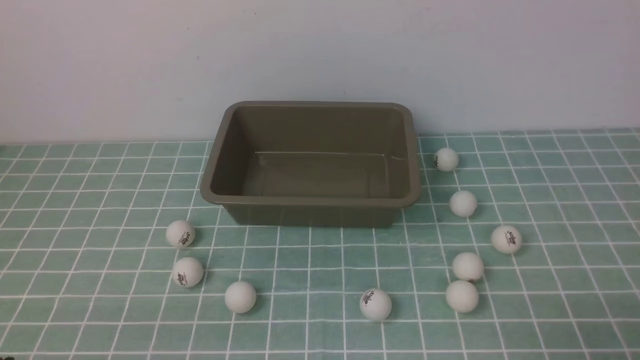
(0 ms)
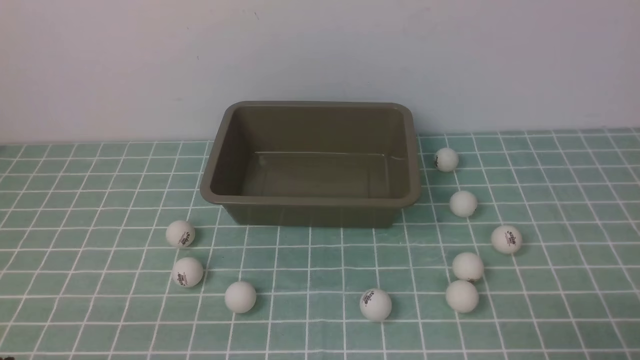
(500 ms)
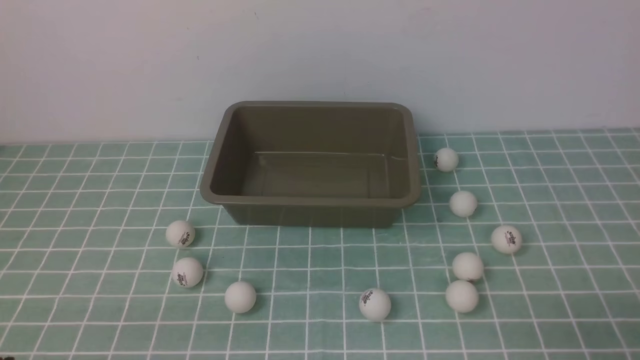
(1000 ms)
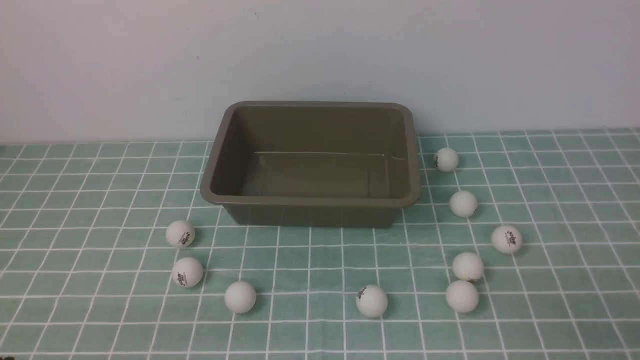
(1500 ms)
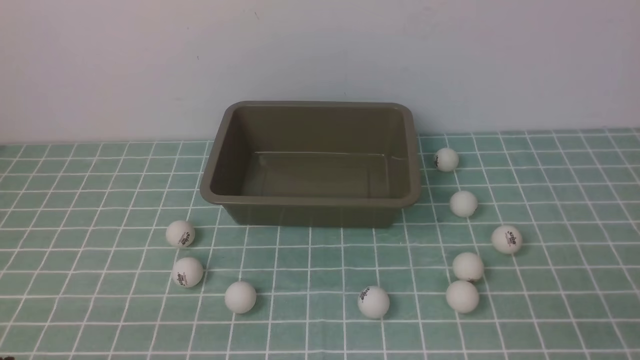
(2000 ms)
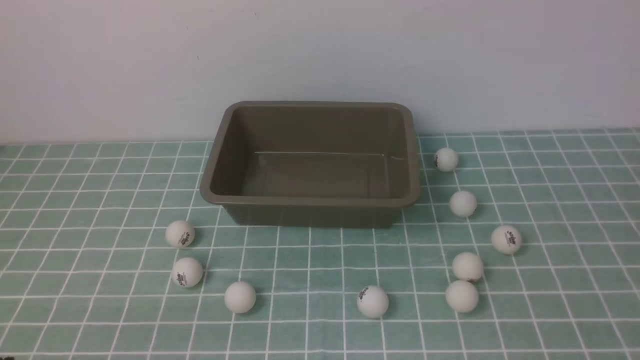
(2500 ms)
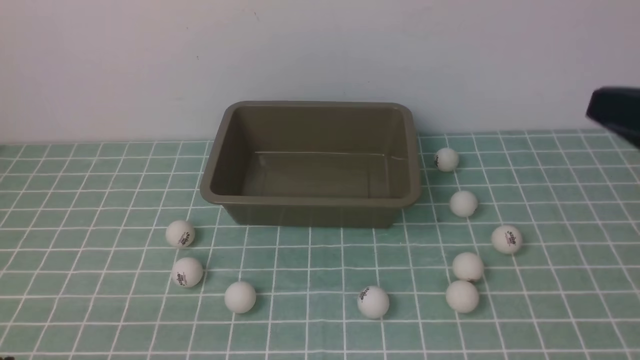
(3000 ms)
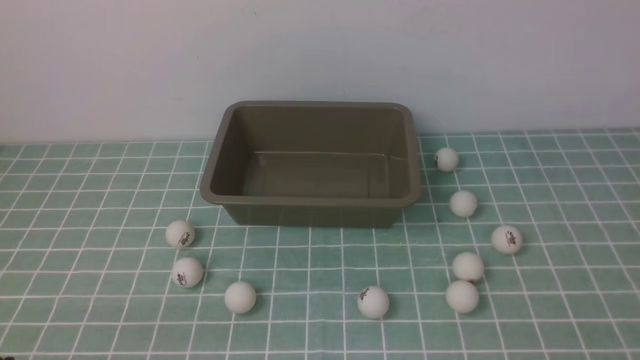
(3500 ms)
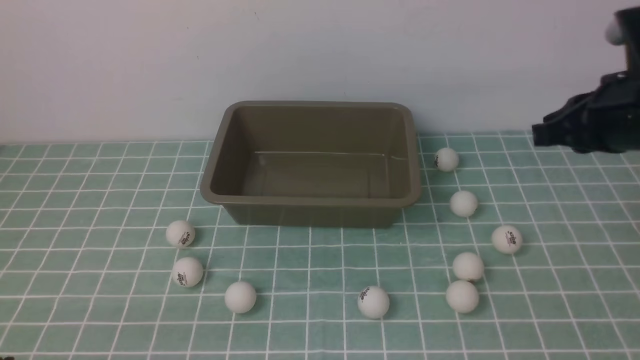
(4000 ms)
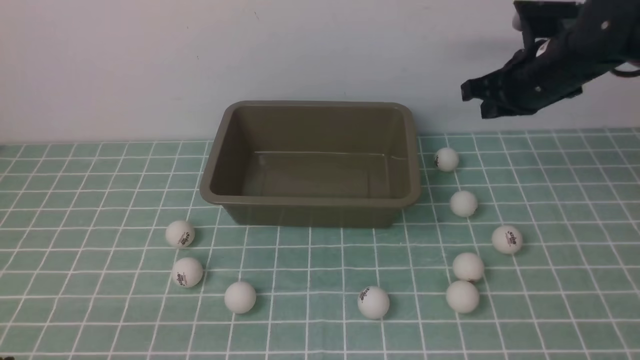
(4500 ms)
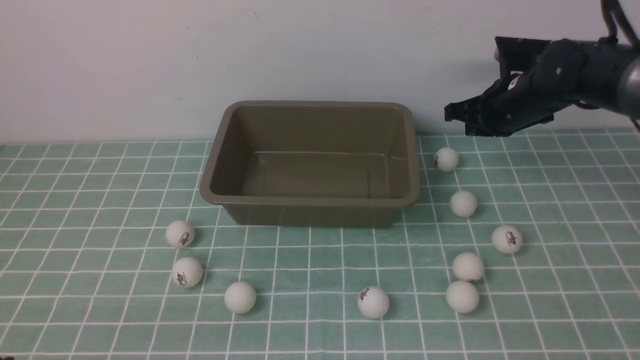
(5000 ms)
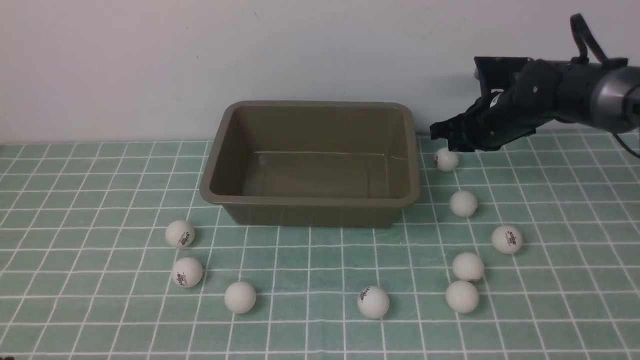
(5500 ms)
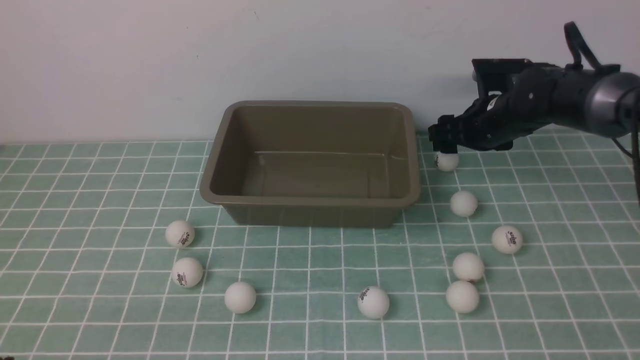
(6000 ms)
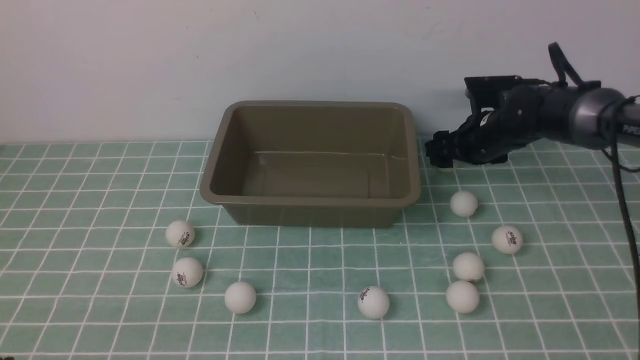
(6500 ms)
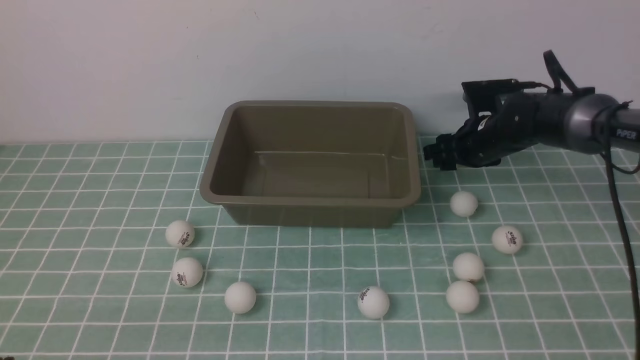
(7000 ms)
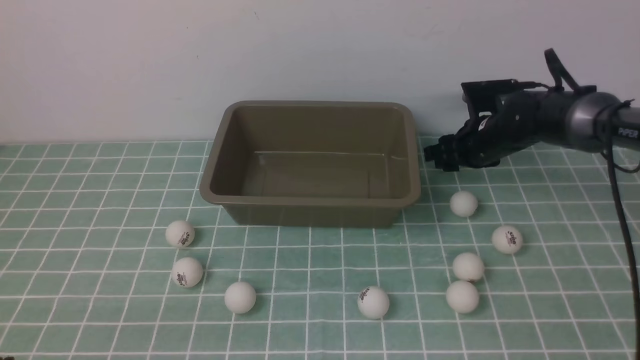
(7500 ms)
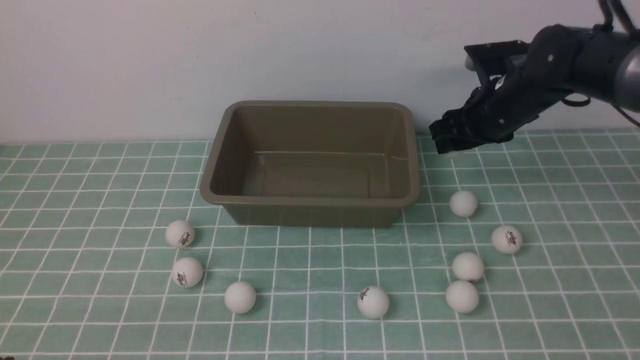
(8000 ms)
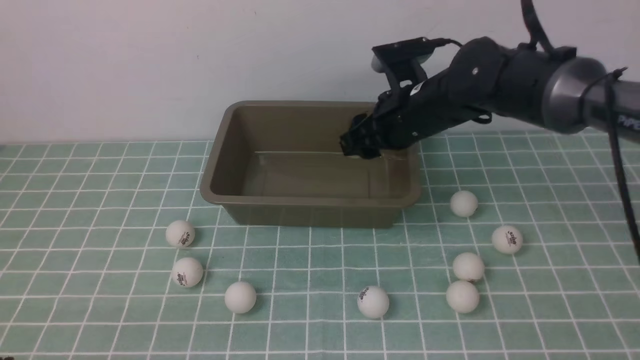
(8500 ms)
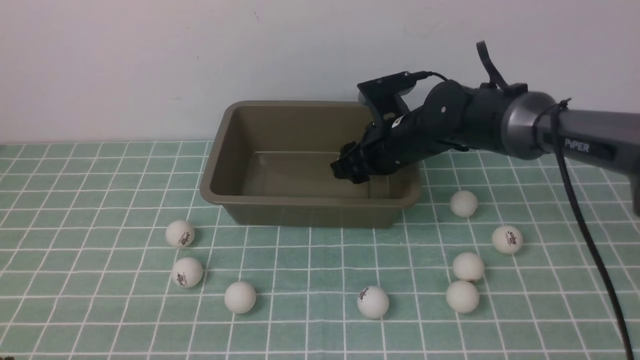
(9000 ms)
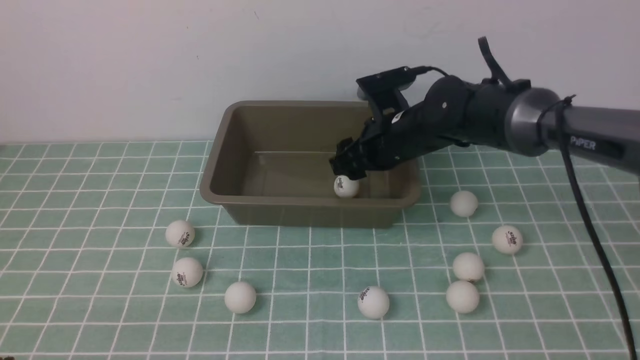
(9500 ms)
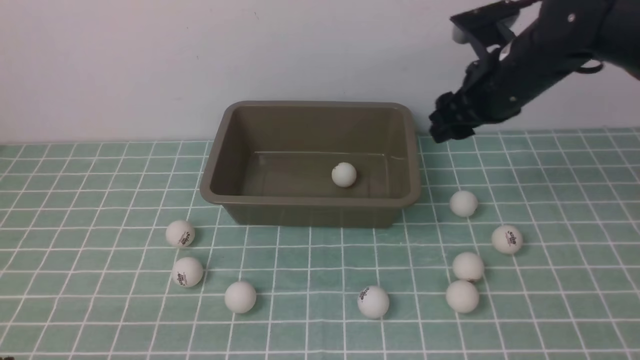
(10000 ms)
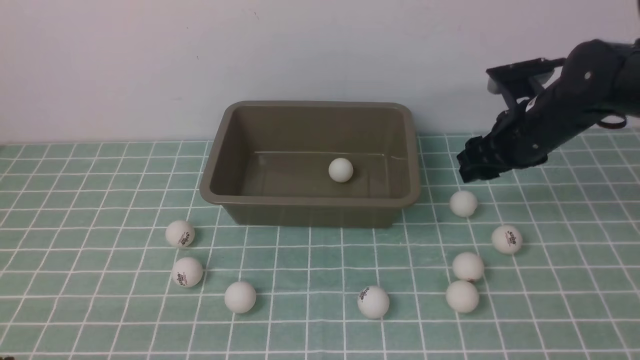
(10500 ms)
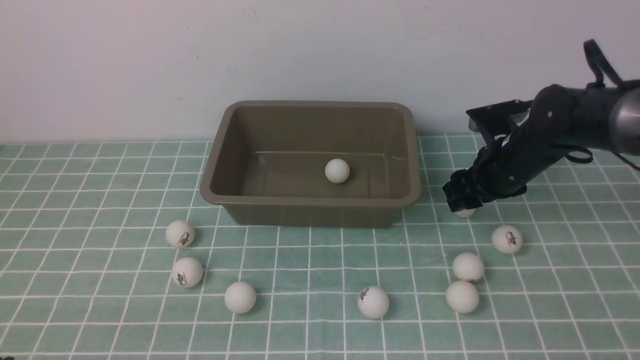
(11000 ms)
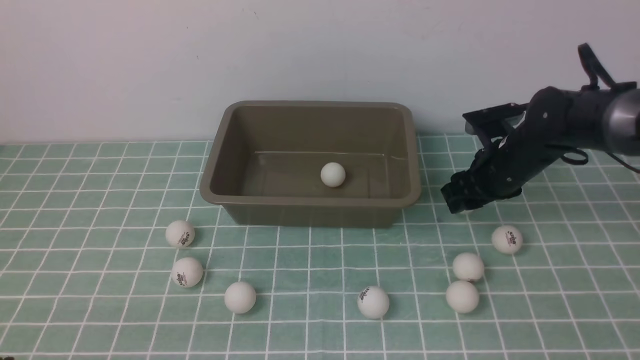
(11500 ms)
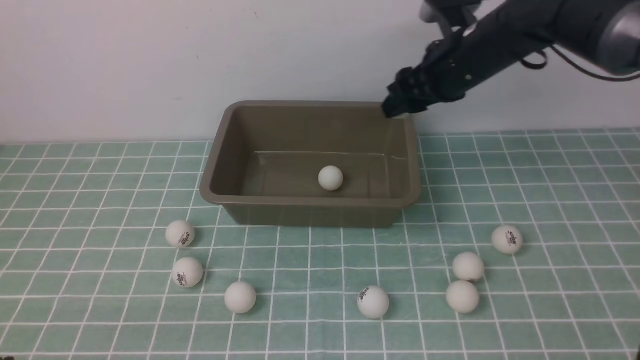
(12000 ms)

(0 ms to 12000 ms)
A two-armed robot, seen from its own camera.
Step, 0 ms - 7500 ms: use the right arm to clamp the table tennis ball closest to it.
Step, 8000 ms - 9500 ms: use the right arm to put the table tennis ball into the box.
Step, 10000 ms - 11500 ms: use the right arm to clamp the table tennis ball closest to it.
2000 ms - 4000 ms: The right gripper goes approximately 25 cm forward.
4000 ms - 6000 ms: The right gripper heads forward and downward, covering about 20 cm, and opens up.
6000 ms - 8000 ms: The right gripper moves to the left and upward, roughly 10 cm.
8000 ms - 10000 ms: The right gripper is displaced to the right by some 10 cm.
10000 ms - 12000 ms: The right gripper goes approximately 15 cm to the left.

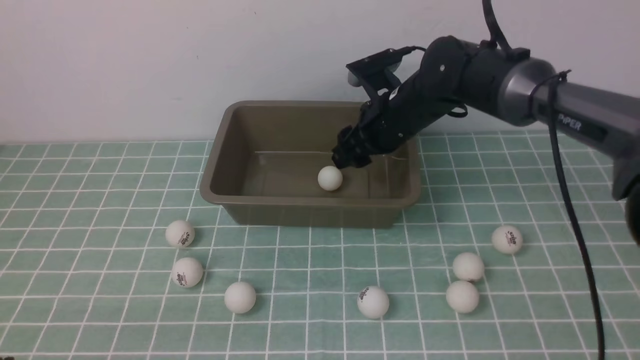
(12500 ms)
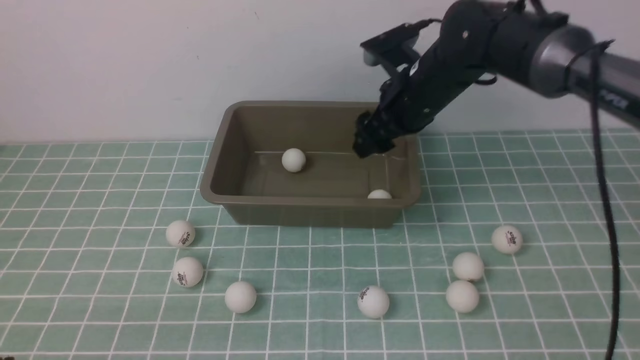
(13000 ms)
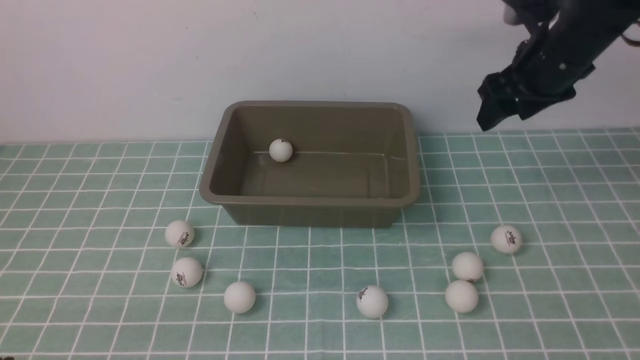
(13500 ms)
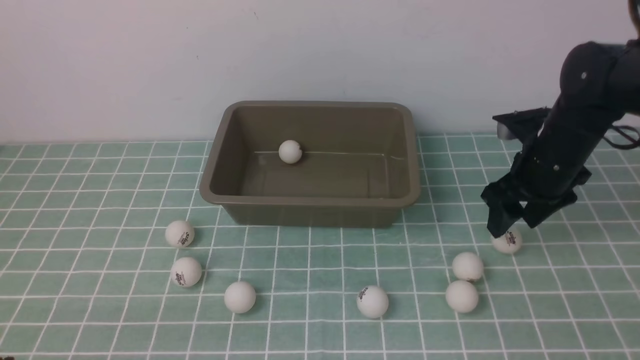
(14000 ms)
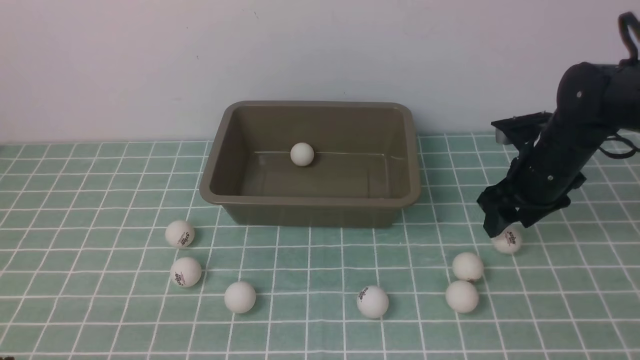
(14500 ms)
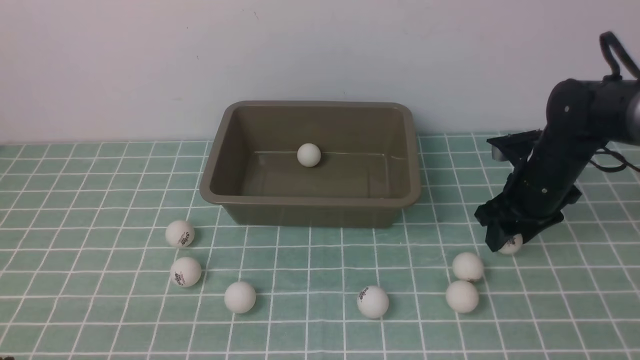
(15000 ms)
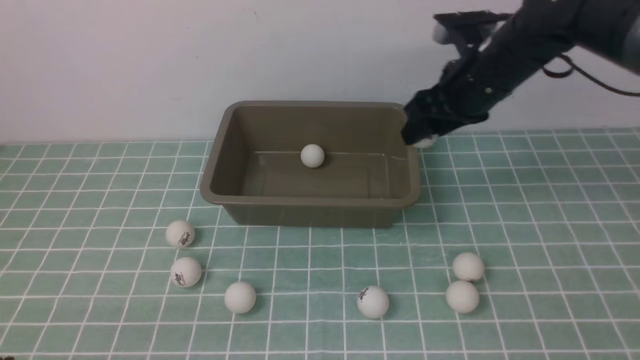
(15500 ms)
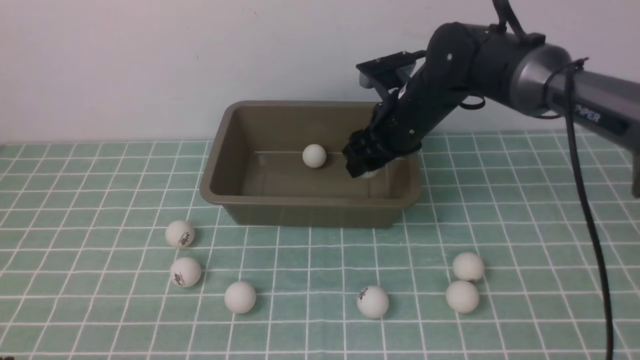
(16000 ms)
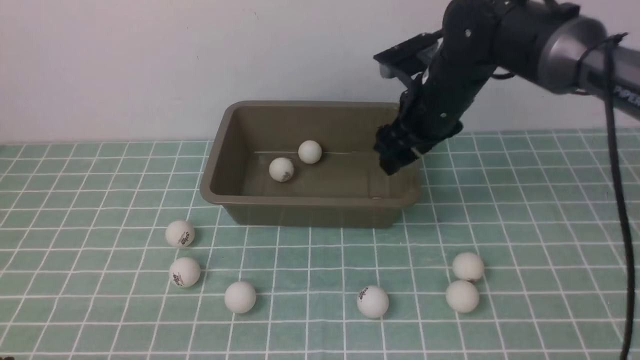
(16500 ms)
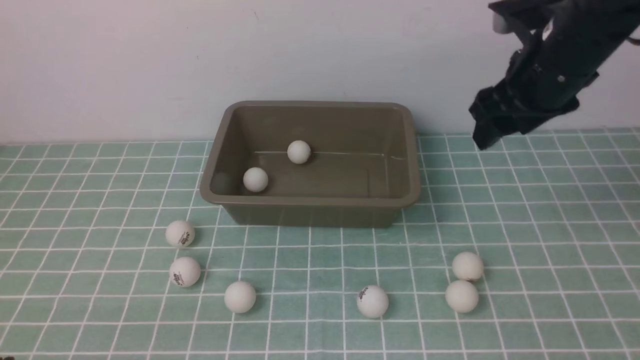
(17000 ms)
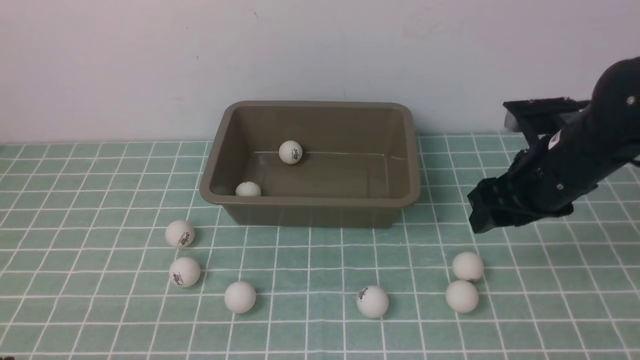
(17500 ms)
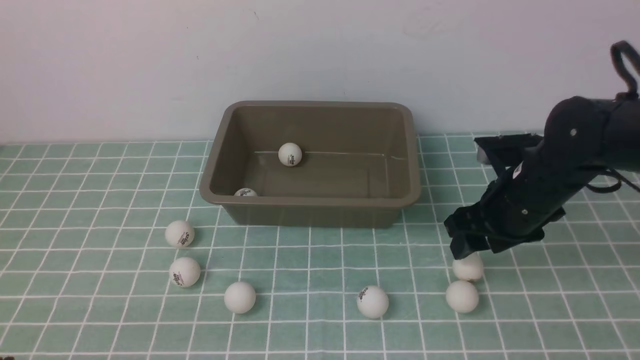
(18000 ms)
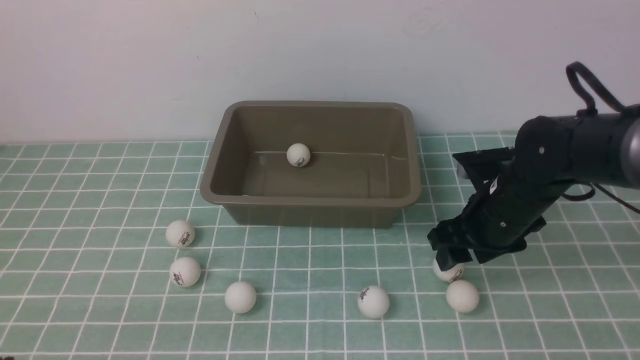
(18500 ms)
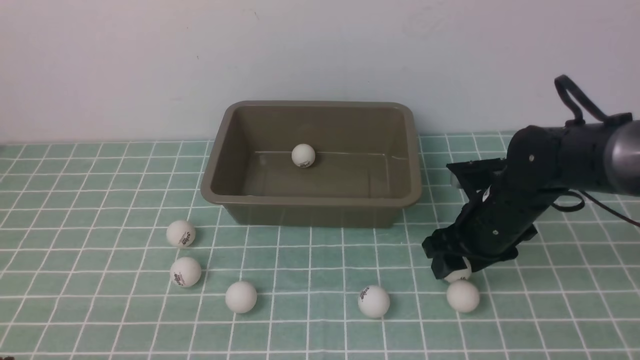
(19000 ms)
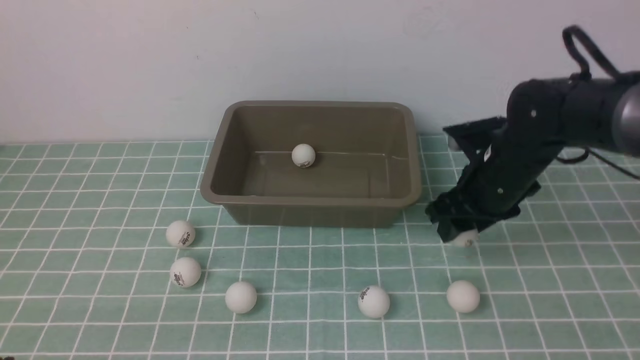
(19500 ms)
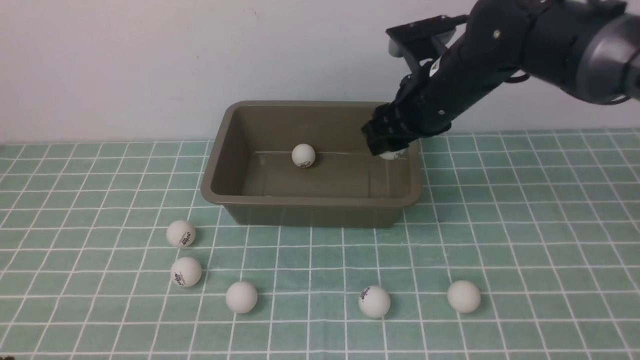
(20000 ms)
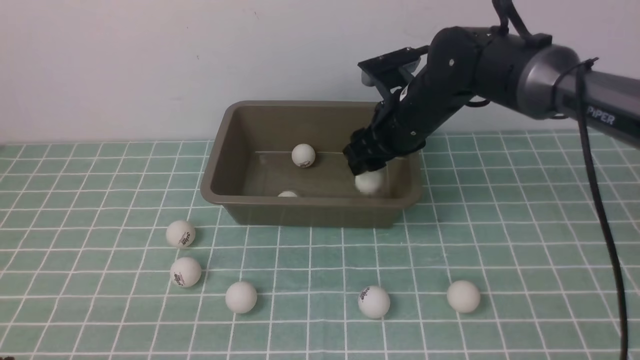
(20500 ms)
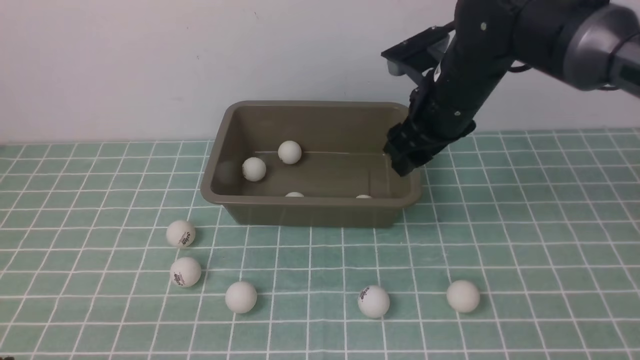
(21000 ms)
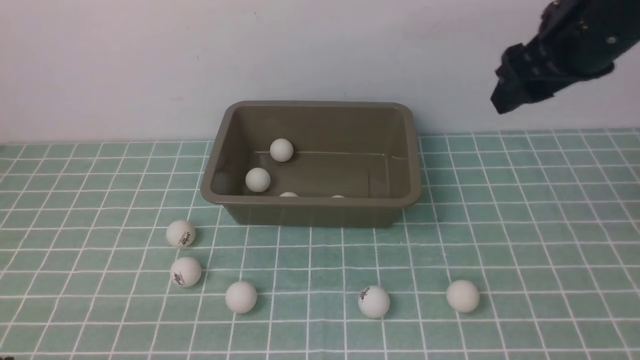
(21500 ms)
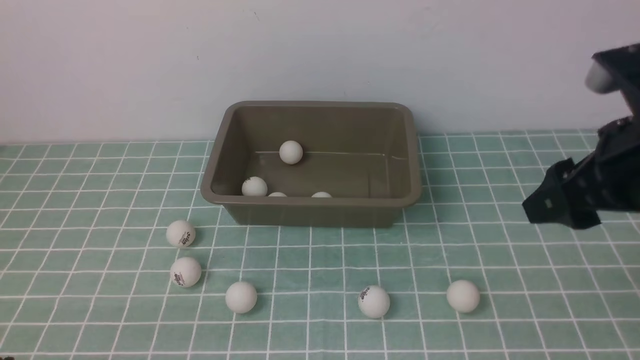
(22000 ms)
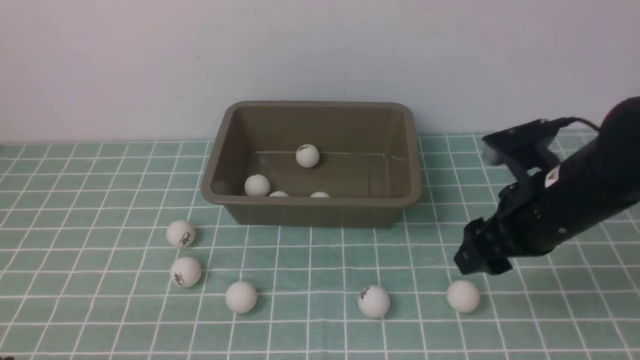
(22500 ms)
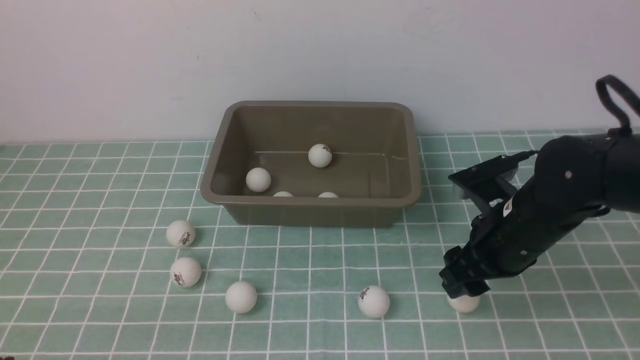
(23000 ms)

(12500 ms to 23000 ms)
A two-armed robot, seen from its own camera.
Step, 13000 ms - 15000 ms: use the right arm to clamp the table tennis ball closest to it.
Step, 15500 ms - 16000 ms: use the right arm to put the table tennis ball into the box.
Step, 16500 ms - 19500 ms: use the right arm to clamp the table tennis ball closest to it.
Step, 20000 ms - 20500 ms: use the right arm to put the table tennis ball into the box.
12500 ms - 14500 ms: The right gripper reaches roughly 10 cm downward, then returns.
14500 ms - 16500 ms: The right gripper heads backward, covering some 5 cm, and travels to the left and back again, roughly 10 cm each way.
16500 ms - 19000 ms: The right gripper shifts approximately 15 cm downward.
19000 ms - 21000 ms: The right gripper shifts about 15 cm upward, to the left and forward.
21000 ms - 23000 ms: The right gripper goes about 15 cm backward, downward and to the right.
